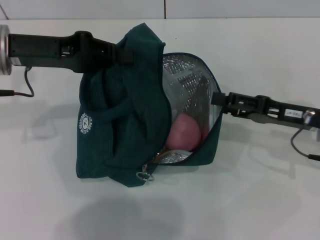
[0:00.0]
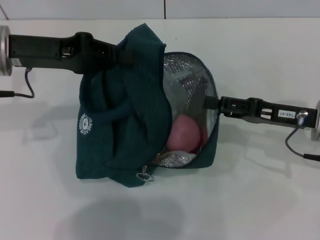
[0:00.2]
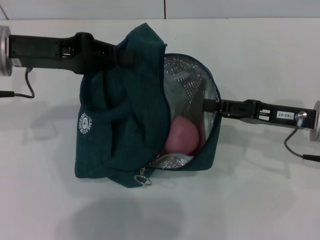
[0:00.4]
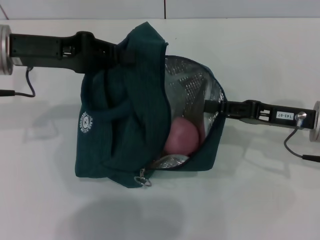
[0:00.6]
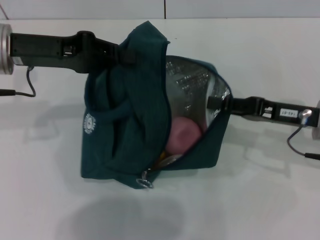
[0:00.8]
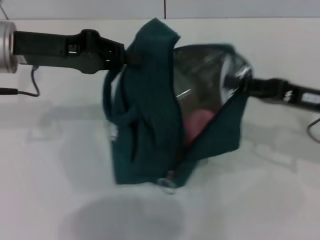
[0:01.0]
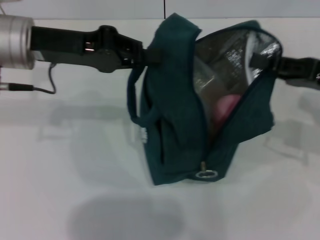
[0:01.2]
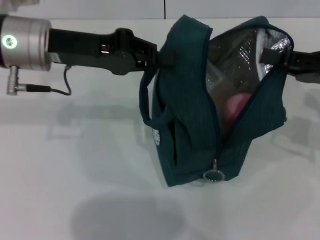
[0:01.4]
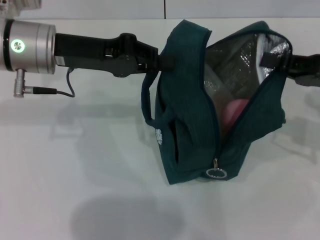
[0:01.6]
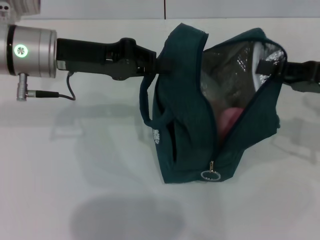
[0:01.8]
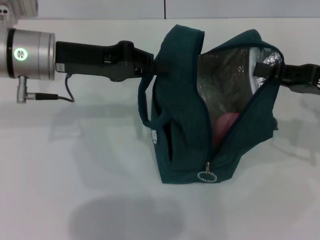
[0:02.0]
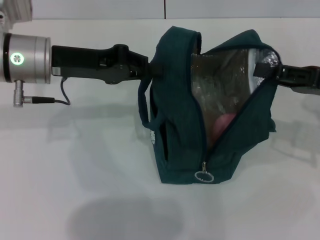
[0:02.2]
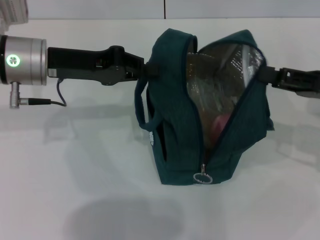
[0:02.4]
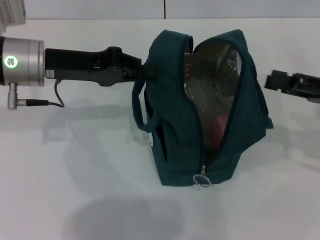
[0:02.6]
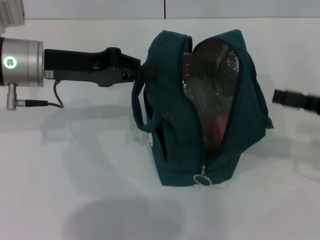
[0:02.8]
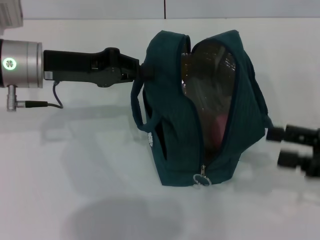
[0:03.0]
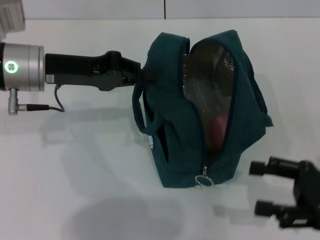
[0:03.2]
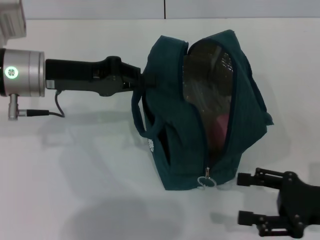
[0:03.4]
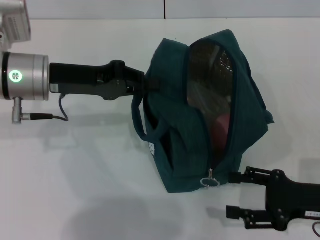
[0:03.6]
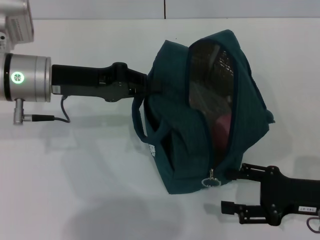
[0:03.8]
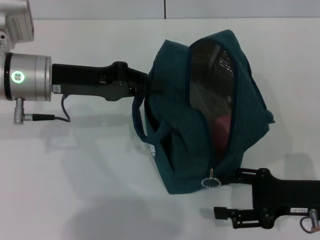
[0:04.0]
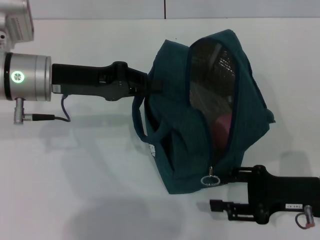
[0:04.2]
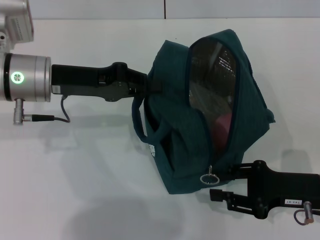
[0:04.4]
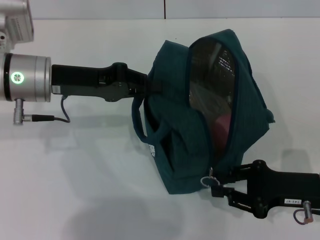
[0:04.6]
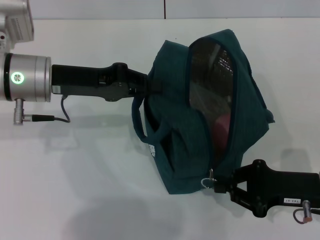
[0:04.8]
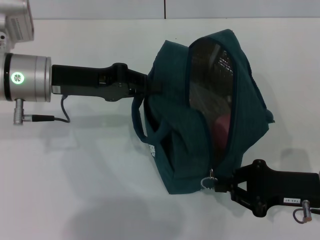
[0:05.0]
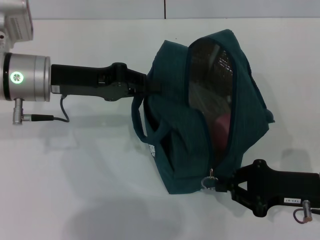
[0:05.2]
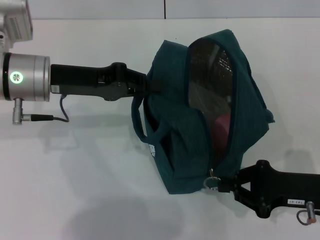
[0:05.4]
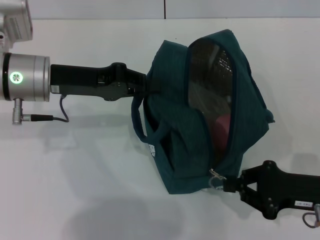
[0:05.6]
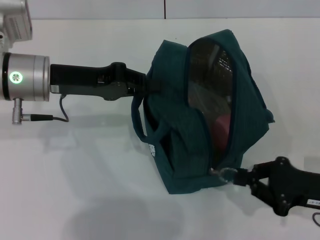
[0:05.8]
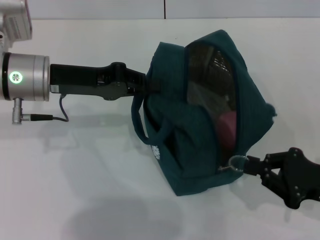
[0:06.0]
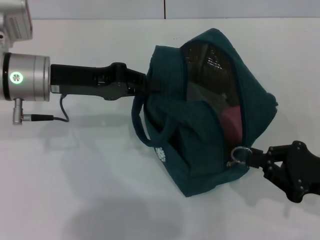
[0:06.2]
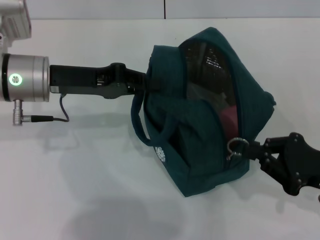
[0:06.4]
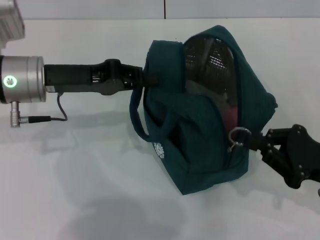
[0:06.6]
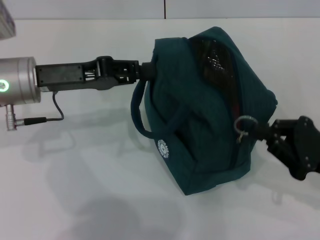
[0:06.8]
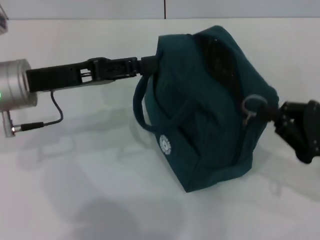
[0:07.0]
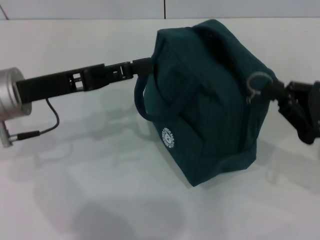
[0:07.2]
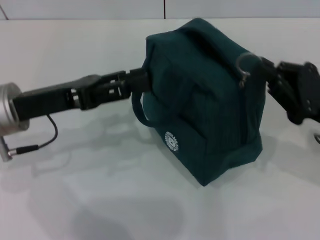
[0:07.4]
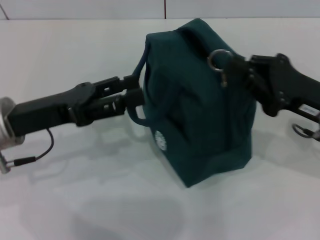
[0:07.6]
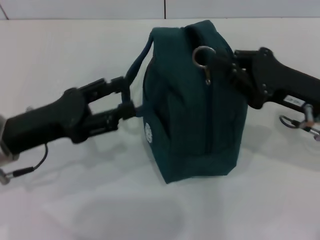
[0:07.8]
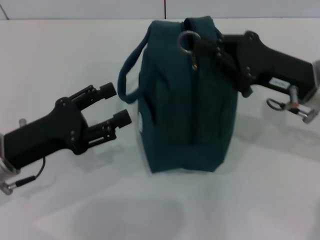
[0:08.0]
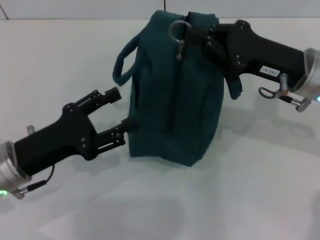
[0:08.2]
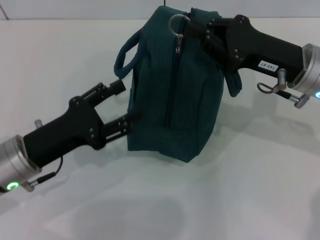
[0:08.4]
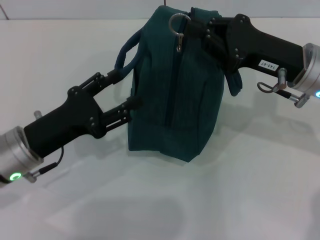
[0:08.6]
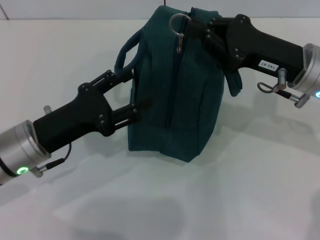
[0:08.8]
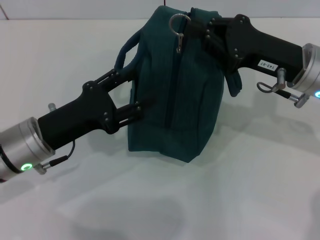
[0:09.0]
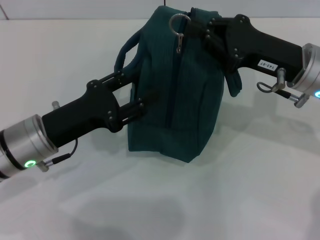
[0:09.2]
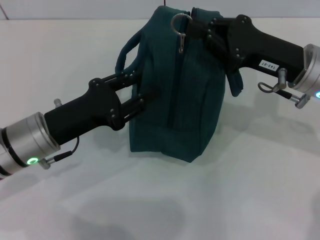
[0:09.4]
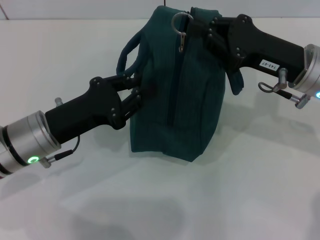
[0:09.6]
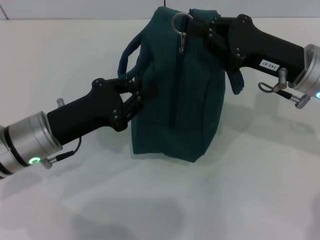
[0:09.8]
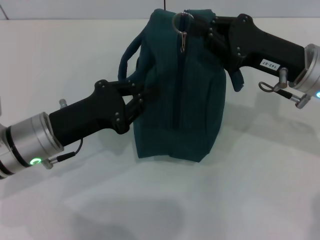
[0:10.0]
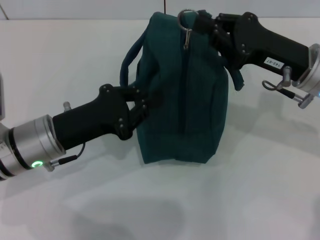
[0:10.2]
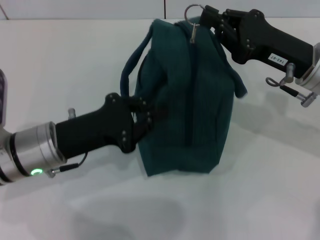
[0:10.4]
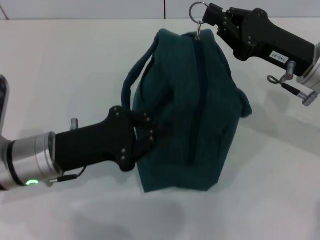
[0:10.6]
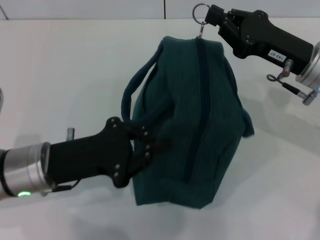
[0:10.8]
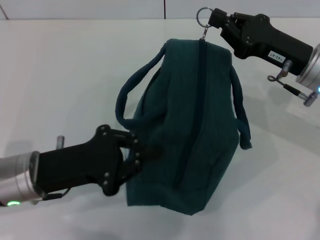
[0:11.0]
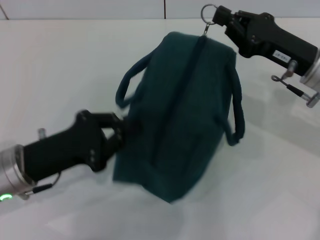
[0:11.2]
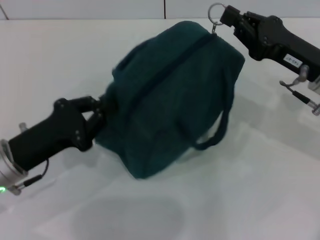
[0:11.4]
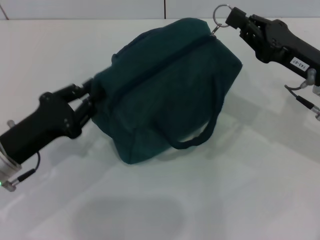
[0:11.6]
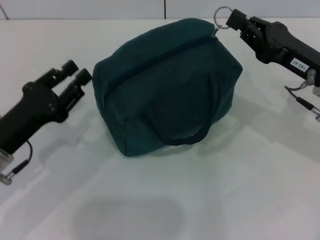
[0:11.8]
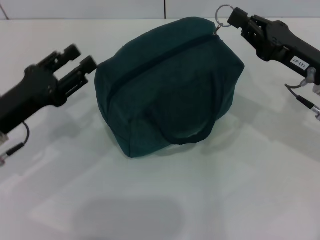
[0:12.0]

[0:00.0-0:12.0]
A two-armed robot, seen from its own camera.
Step, 0:00.0 to 0:02.2: Hold the lunch bag with your right hand.
Step, 0:02.6 to 0:07.2: Hold the lunch bag with your left hand.
0:00.0 to 0:01.6: The right gripper shifts some 5 cm upward, and closes its fingers, while the left gripper changes place by approximately 5 cm.
0:01.6 to 0:03.0: The right gripper is displaced backward by roughly 5 cm, and opens up.
0:03.0 to 0:04.4: The right gripper heads downward and to the left, covering roughly 10 cm.
0:04.4 to 0:06.0: The right gripper closes up.
0:06.0 to 0:07.6: The left gripper heads backward, covering some 5 cm, and opens up, while the right gripper shifts about 10 cm forward and upward.
0:07.6 to 0:09.0: The right gripper is displaced forward by about 5 cm, while the left gripper travels downward by some 5 cm.
0:09.0 to 0:10.4: The left gripper closes its fingers.
0:10.4 to 0:12.0: The left gripper goes roughly 5 cm to the left, and opens up.

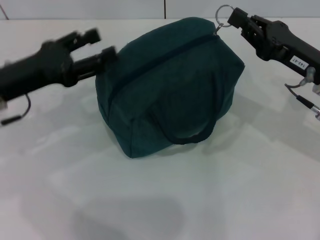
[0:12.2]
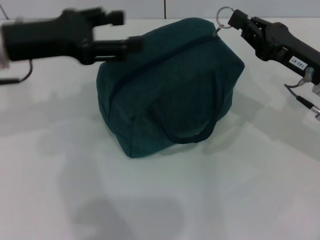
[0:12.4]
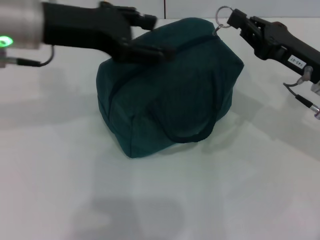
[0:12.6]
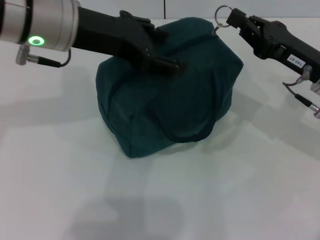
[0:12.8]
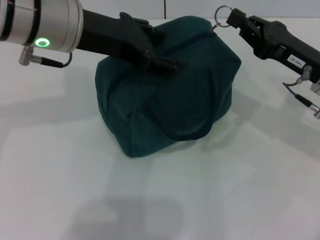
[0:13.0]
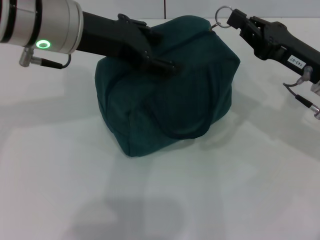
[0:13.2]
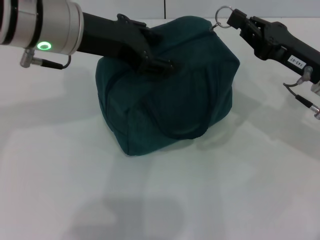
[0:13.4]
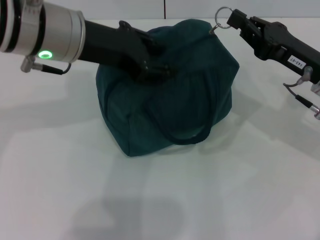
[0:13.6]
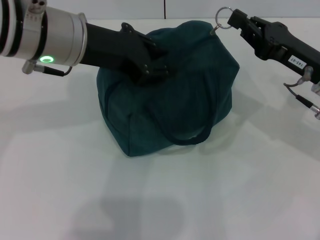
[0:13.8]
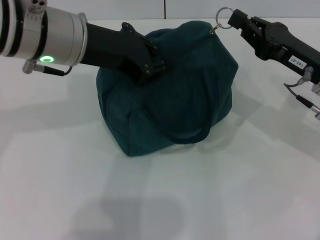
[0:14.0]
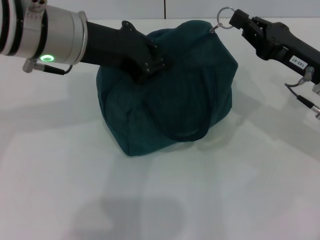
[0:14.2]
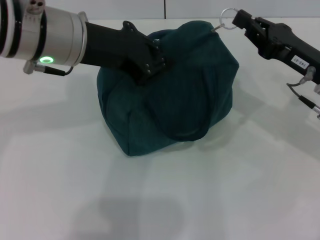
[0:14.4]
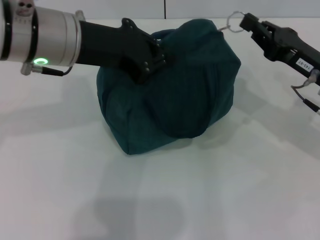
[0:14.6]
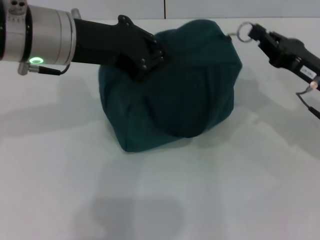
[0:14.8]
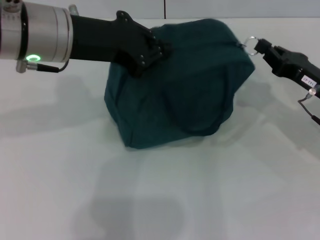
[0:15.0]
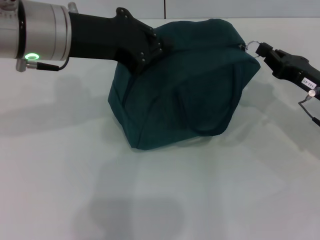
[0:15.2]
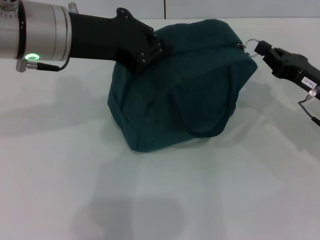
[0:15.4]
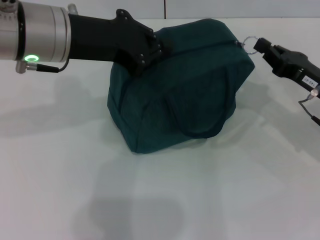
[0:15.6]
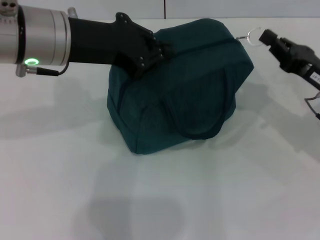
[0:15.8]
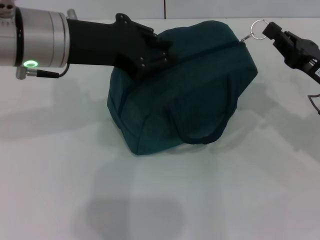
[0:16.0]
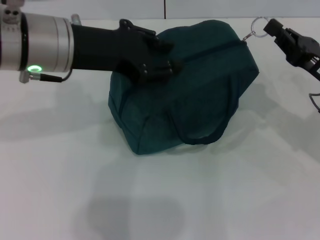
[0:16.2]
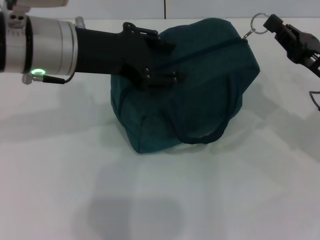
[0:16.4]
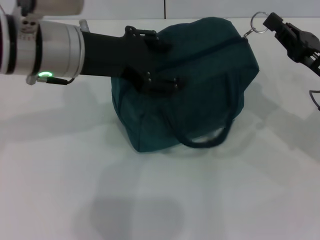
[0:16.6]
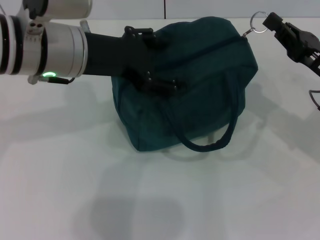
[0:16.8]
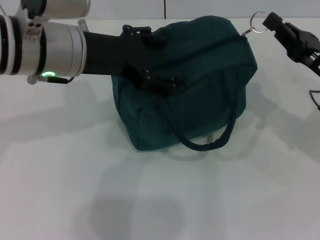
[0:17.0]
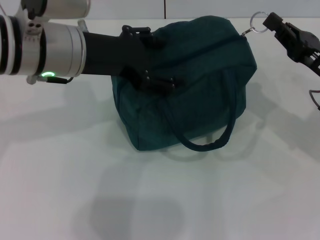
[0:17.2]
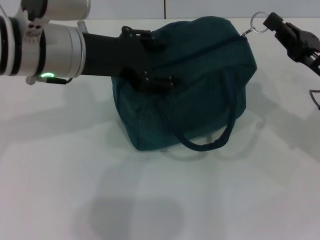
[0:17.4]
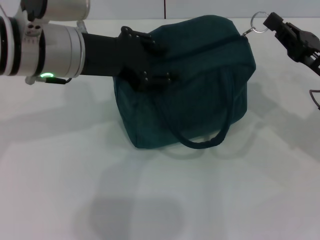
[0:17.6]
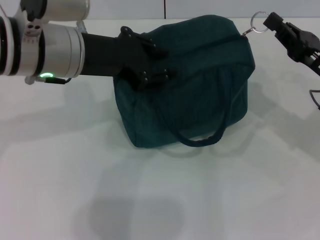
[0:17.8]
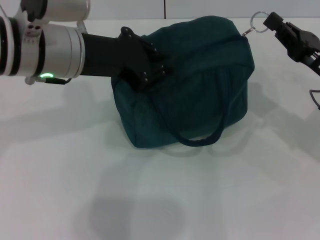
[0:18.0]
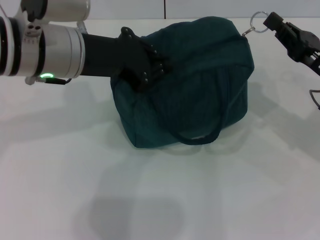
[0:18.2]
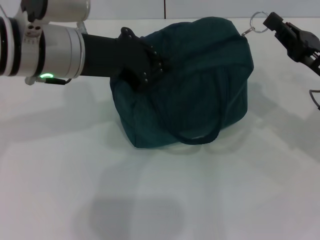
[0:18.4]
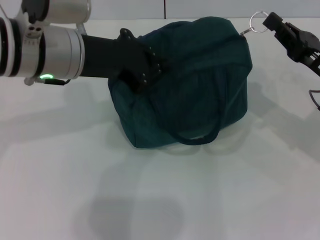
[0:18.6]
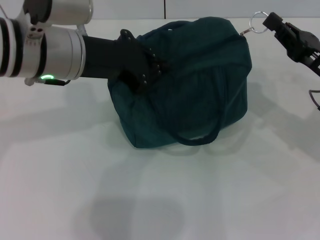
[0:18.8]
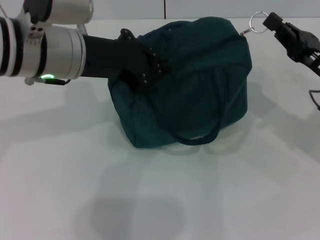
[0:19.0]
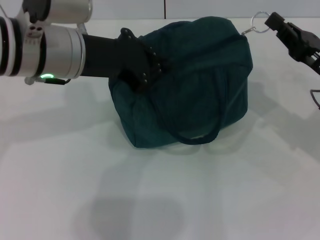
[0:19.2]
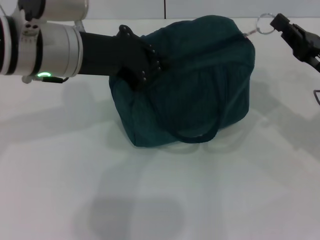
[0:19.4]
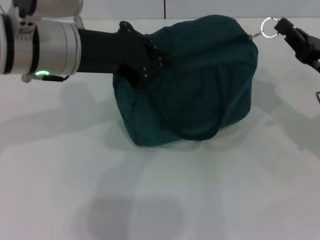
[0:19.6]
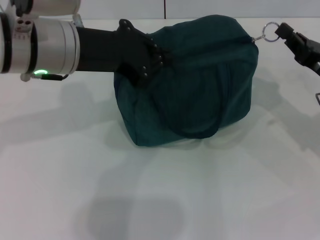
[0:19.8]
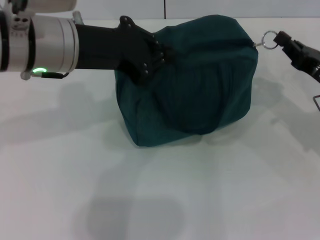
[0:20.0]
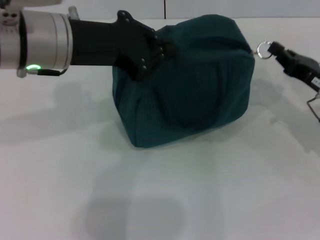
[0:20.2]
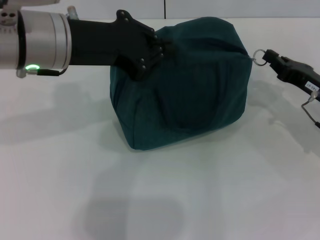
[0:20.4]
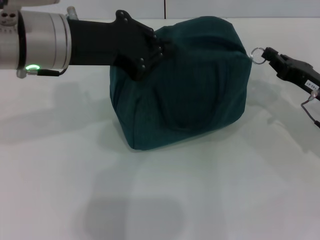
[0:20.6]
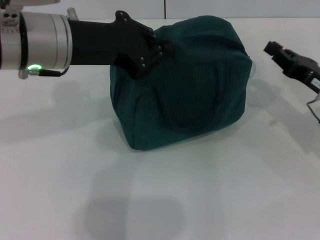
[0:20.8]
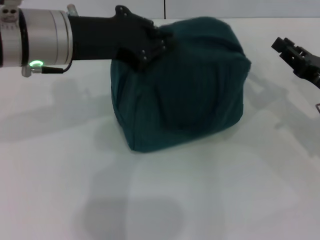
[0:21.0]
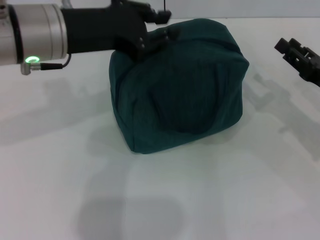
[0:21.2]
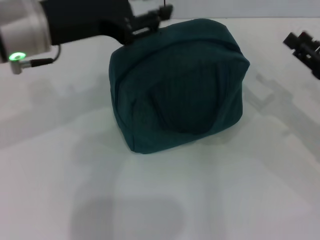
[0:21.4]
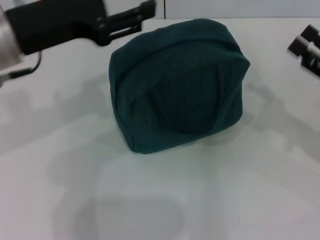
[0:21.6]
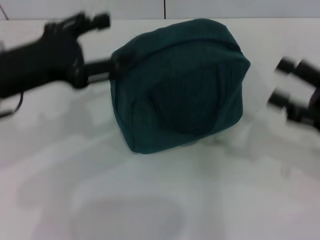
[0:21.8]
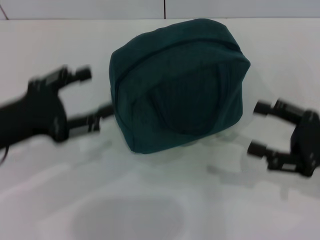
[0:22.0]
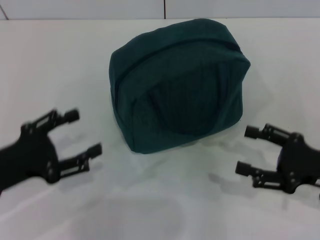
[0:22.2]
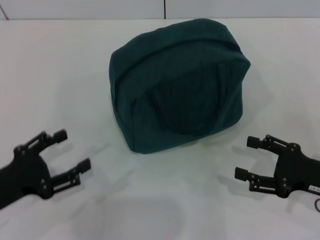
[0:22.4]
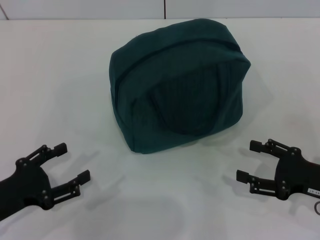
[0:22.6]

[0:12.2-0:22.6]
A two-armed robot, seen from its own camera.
Step, 0:12.2 to 0:20.6: Zip up the lunch bag with your right hand.
Step, 0:20.8 to 0:21.2: Hold the lunch bag with your left hand.
0:12.2 to 0:13.6: The left gripper travels to the right and upward by some 15 cm.
0:13.6 to 0:15.2: The right gripper ends up roughly 5 cm from where it was; the left gripper closes its fingers.
0:15.2 to 0:16.6: The left gripper opens.
0:16.6 to 0:18.2: The left gripper closes up.
0:18.2 to 0:19.6: The grippers make only small movements.
0:19.6 to 0:21.2: The grippers make only small movements.
0:21.2 to 0:22.6: The right gripper heads backward, covering approximately 10 cm, and opens its fingers. The left gripper is displaced downward, backward and to the left by approximately 25 cm, and opens its fingers.
